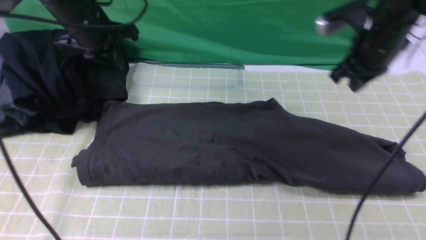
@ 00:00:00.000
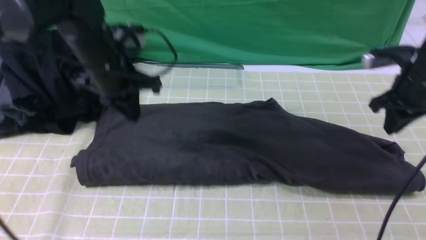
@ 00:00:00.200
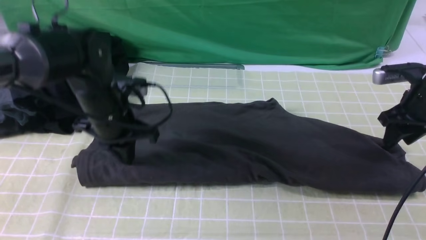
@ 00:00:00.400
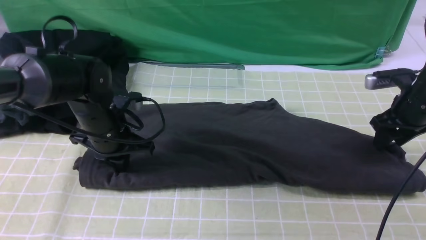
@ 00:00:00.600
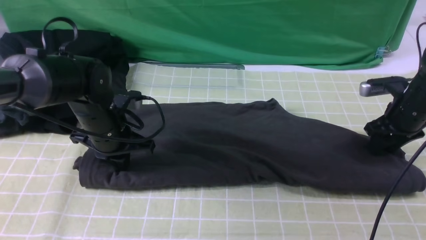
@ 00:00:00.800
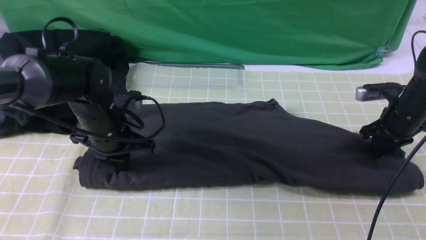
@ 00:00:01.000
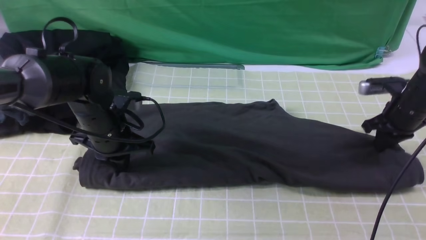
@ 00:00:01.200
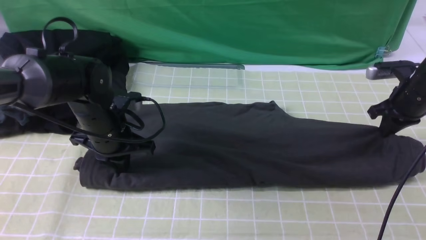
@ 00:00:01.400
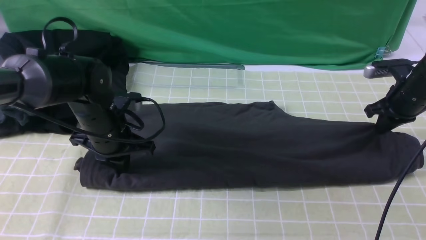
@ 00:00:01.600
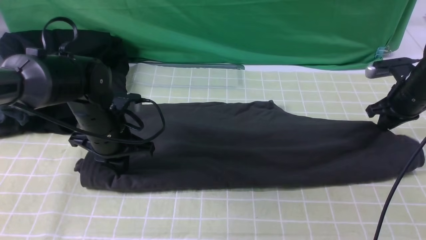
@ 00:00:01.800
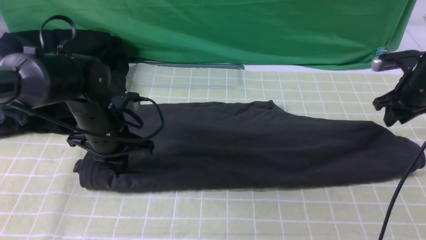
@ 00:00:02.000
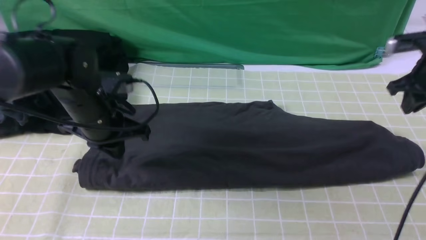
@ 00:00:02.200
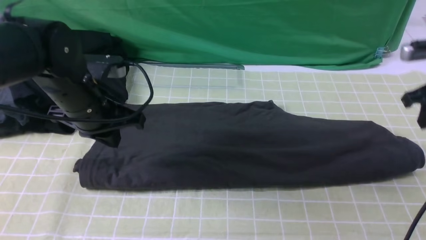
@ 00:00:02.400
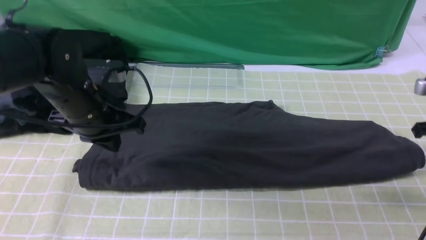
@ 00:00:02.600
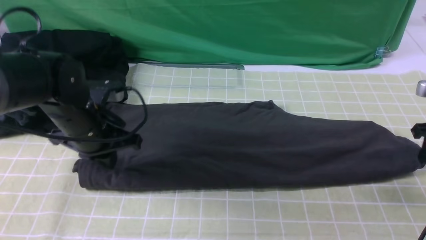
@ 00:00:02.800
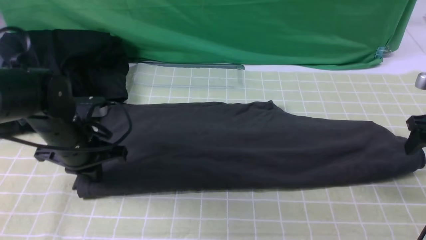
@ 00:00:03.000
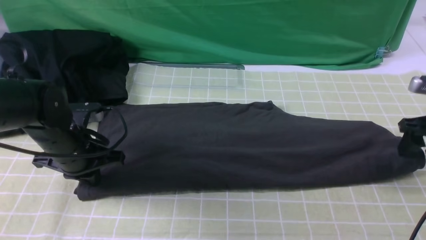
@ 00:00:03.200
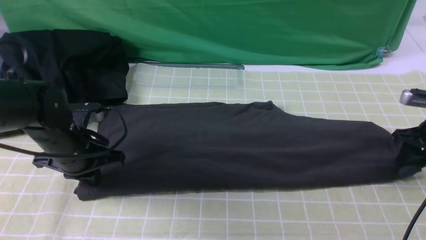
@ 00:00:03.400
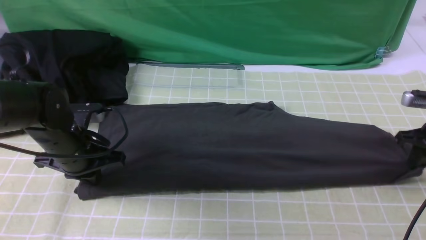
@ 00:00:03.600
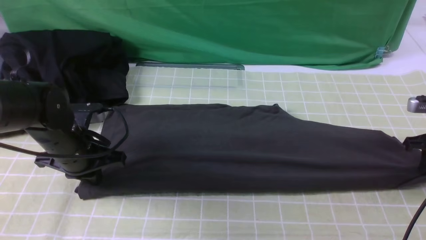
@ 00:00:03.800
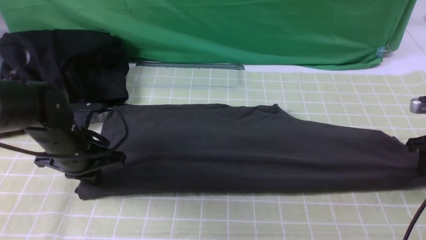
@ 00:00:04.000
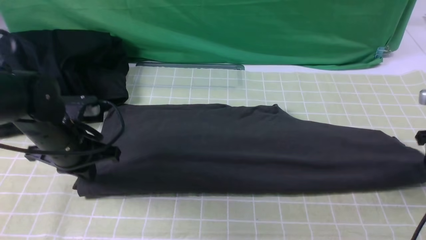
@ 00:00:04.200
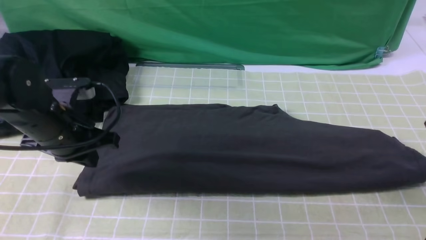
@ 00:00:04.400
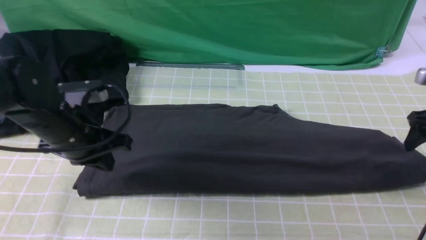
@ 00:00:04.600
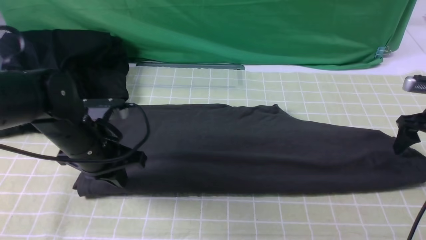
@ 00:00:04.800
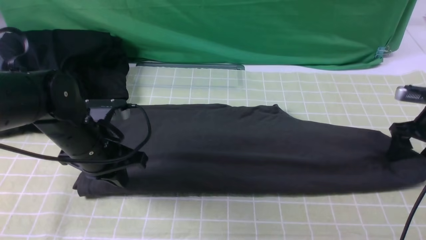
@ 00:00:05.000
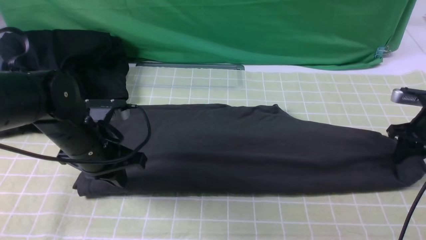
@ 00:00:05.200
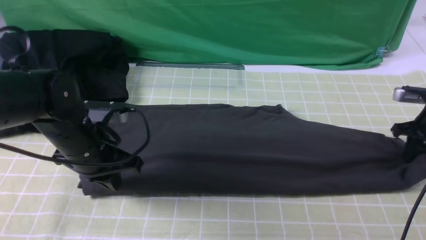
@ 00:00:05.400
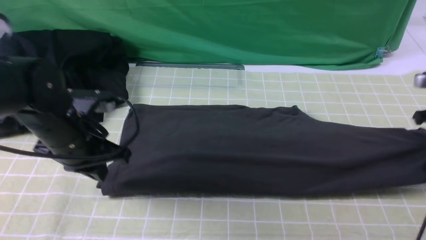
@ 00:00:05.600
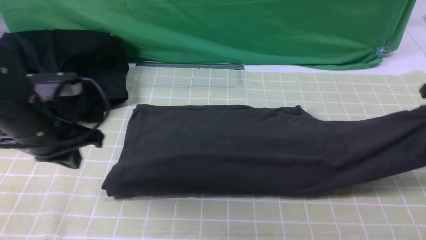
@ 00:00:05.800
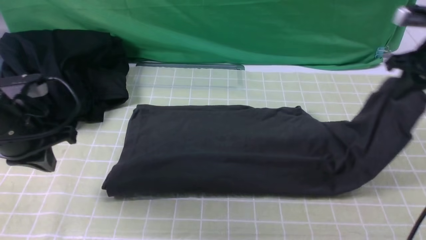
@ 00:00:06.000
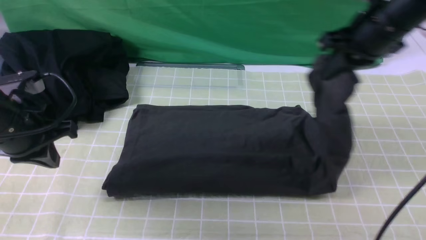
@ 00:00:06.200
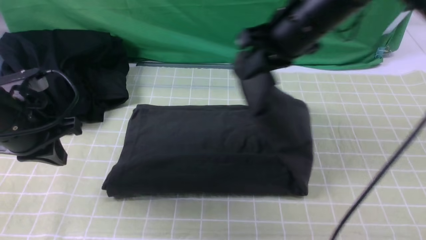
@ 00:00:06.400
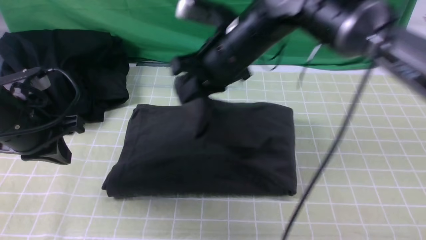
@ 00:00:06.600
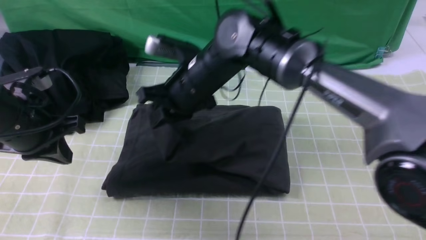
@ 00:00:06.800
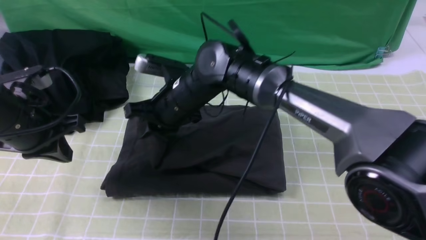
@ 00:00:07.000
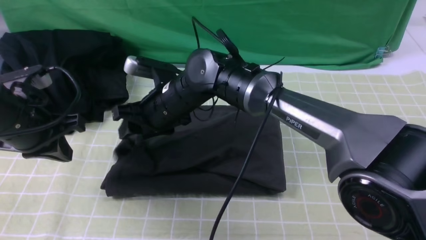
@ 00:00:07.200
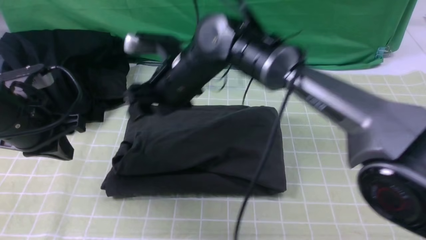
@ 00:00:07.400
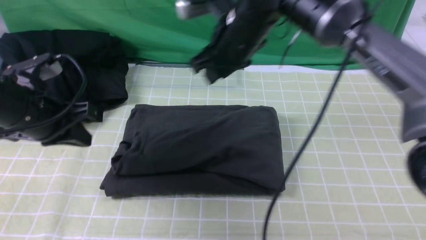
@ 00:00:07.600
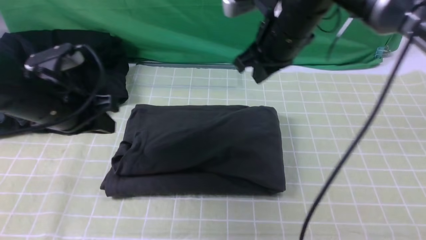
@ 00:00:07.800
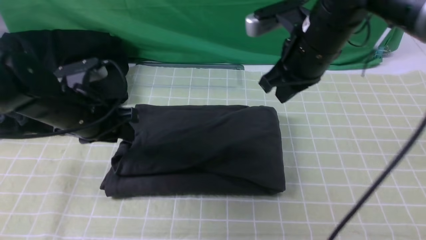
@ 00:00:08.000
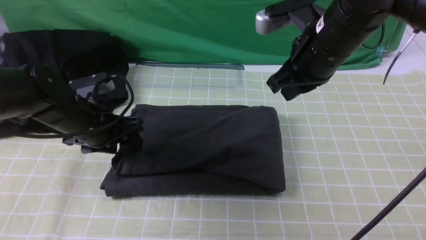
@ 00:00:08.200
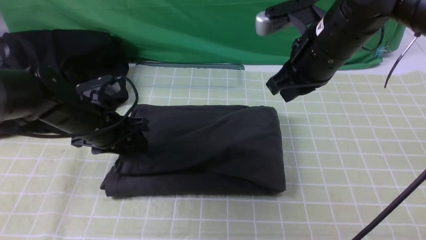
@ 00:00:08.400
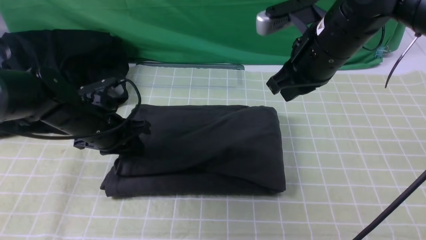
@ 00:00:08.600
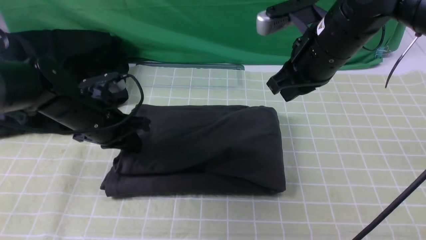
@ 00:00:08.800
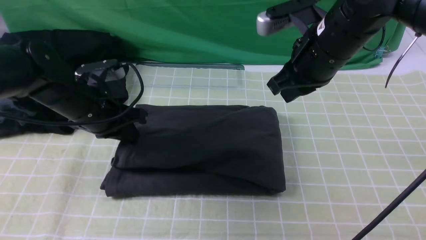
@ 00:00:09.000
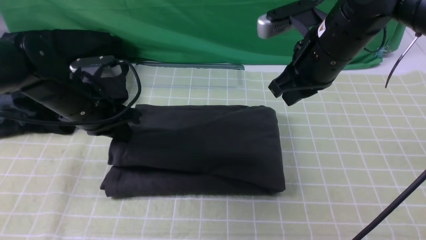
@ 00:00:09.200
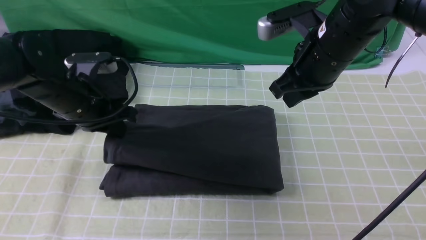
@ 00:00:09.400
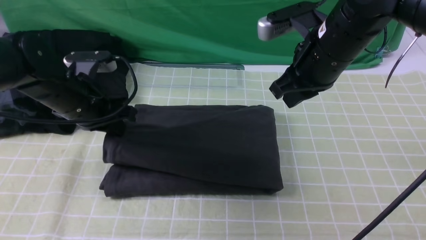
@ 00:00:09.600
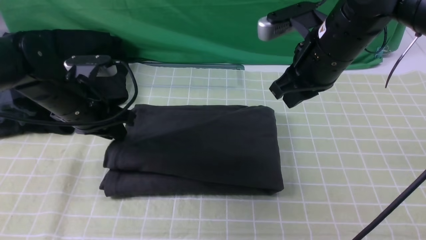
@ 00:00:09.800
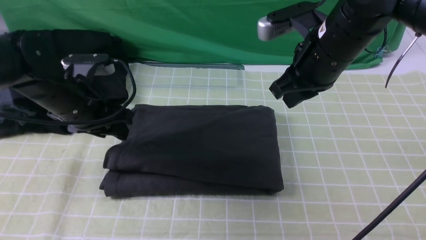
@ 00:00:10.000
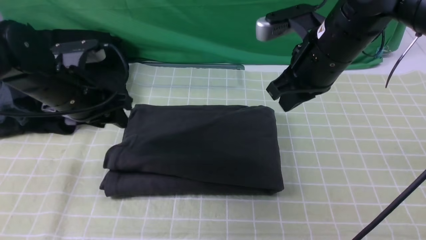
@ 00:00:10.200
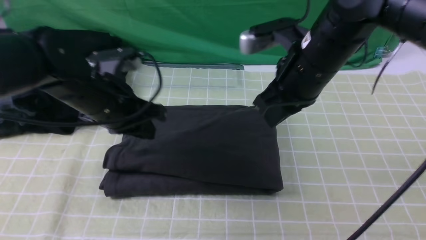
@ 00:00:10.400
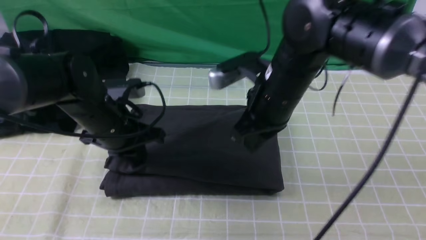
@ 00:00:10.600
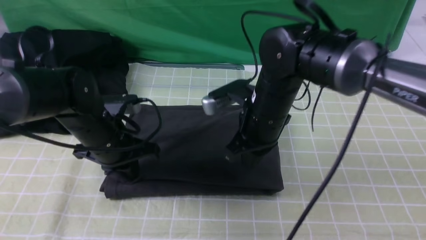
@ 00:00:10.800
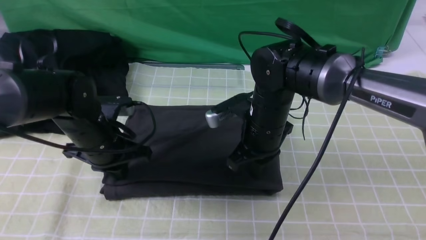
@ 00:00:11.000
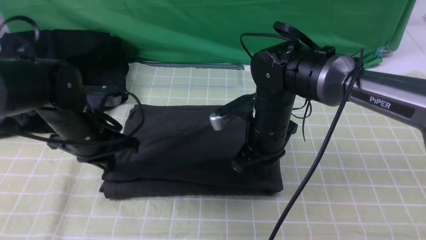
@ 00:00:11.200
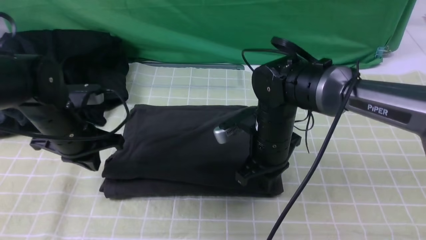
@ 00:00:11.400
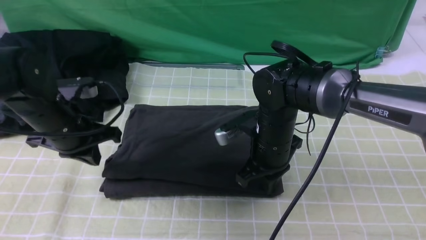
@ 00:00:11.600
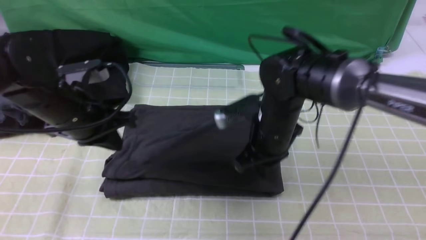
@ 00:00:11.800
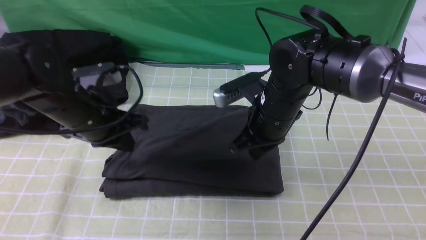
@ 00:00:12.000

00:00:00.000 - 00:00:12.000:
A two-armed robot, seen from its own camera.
Step, 00:00:00.000 - 00:00:05.200: use the right arm to clamp the right edge of the fabric.
Step, 00:00:05.400 - 00:00:07.200: use the right arm to drag the right edge of the fabric to the left and folds it over the left edge.
00:00:00.000 - 00:00:01.600: The left gripper moves downward and backward, approximately 15 cm. Meanwhile the right gripper travels to the right and downward by about 15 cm, and opens, then closes once more.
00:00:01.600 - 00:00:03.000: The left gripper shifts by some 5 cm, while the right gripper is displaced backward by roughly 10 cm, and opens up.
00:00:03.000 - 00:00:04.400: The right gripper closes, then reopens.
00:00:04.400 - 00:00:06.000: The left gripper moves approximately 5 cm. Meanwhile the right gripper is displaced to the left and upward by about 15 cm, and closes.
00:00:06.000 - 00:00:07.600: The right gripper is displaced to the left by some 25 cm, and opens.
00:00:07.600 - 00:00:09.000: The right gripper heads to the right, covering about 10 cm, and closes up, while the left gripper moves forward, about 5 cm, and opens, then closes again.
00:00:09.000 - 00:00:10.400: The left gripper opens and closes again.
00:00:10.400 - 00:00:12.000: The right gripper heads downward, covering approximately 10 cm.

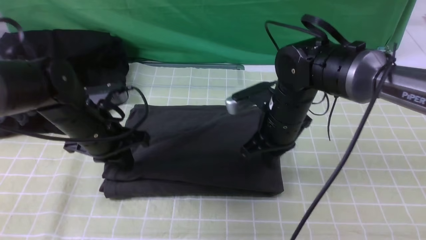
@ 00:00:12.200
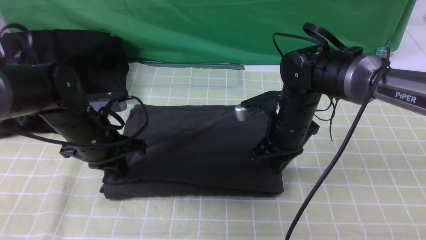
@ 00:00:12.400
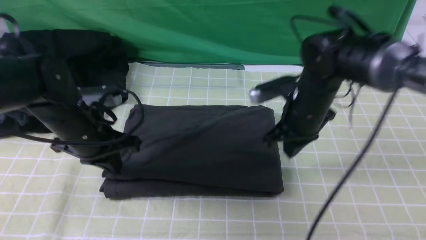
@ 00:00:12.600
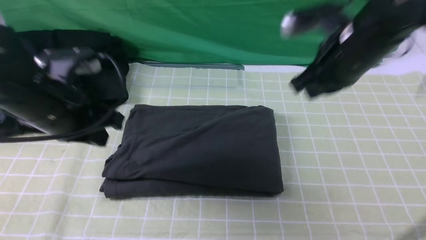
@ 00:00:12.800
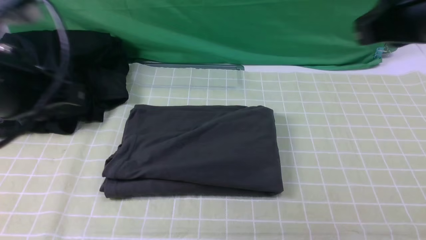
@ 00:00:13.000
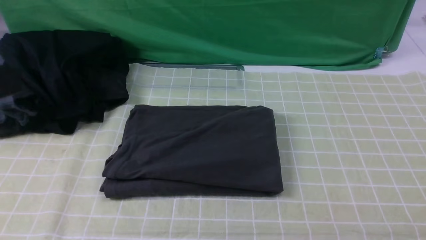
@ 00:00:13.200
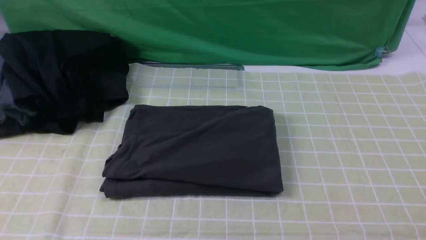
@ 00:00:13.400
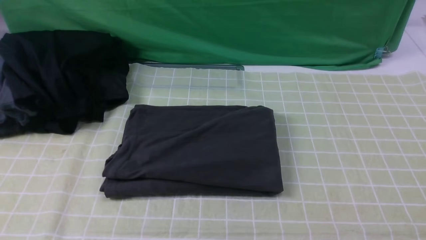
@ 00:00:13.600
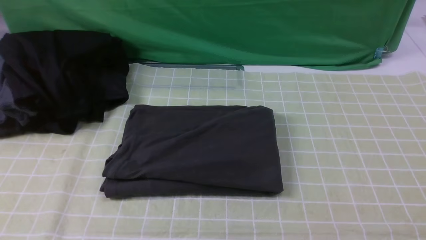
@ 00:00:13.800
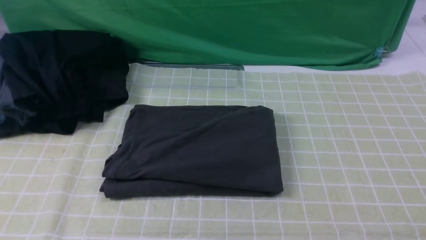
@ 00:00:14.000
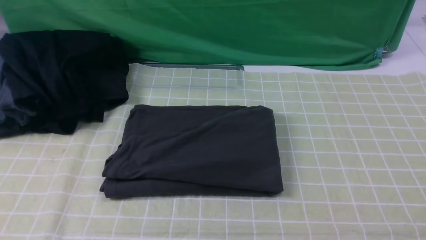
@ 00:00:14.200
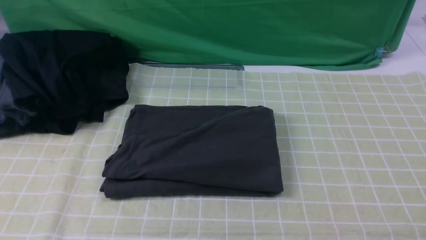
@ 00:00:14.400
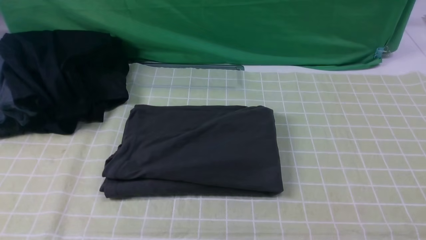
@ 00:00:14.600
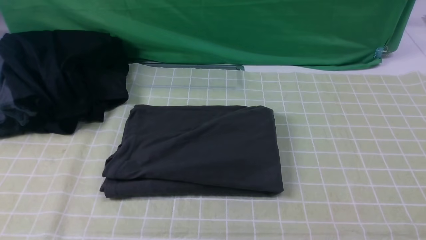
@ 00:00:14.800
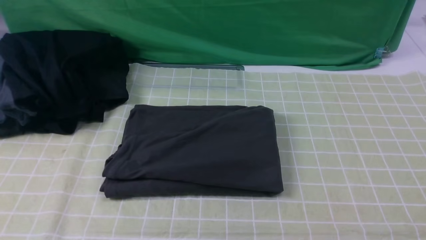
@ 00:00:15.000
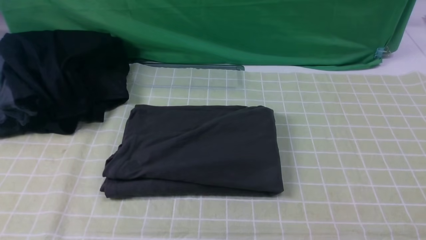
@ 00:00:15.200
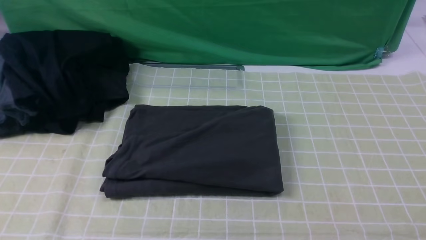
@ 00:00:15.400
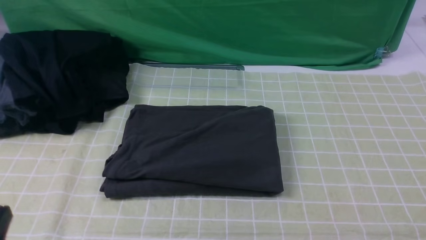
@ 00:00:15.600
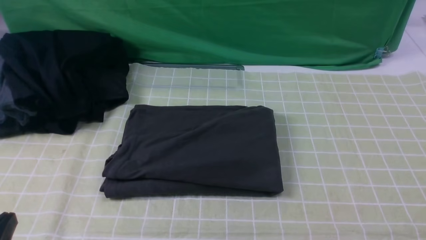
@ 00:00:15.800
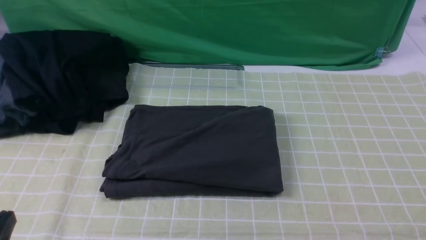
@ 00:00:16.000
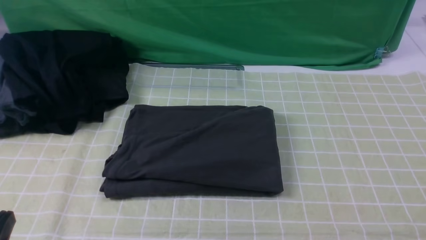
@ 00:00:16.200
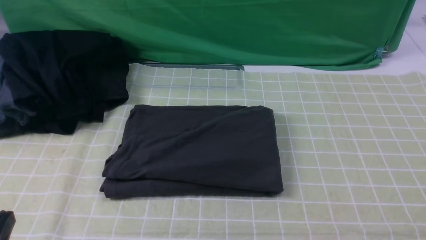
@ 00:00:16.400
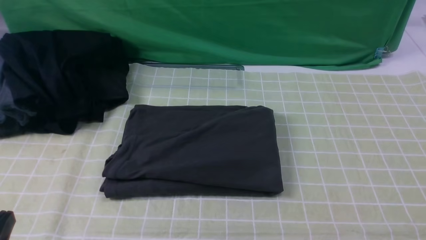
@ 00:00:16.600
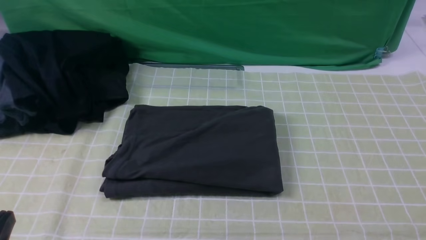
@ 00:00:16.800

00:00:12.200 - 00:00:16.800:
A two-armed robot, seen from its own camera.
00:00:12.200 - 00:00:13.800: The left gripper is displaced backward and upward by about 40 cm. Meanwhile the right gripper shifts some 40 cm backward, to the right and upward.
